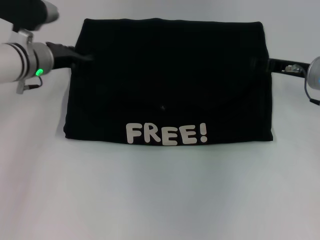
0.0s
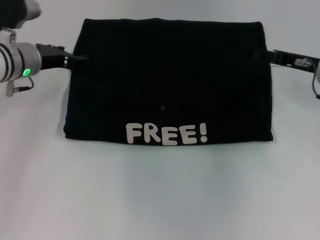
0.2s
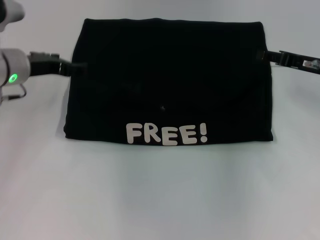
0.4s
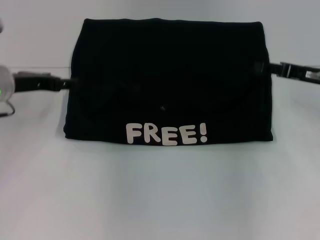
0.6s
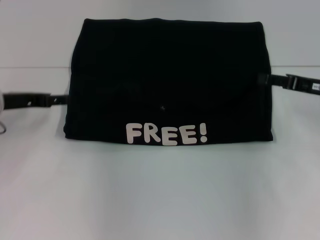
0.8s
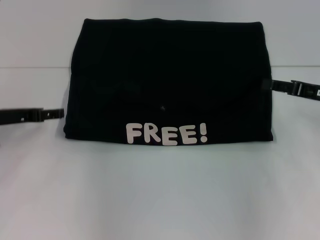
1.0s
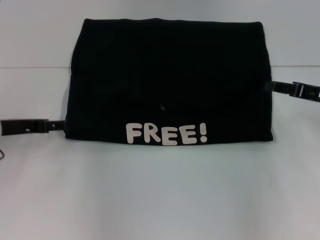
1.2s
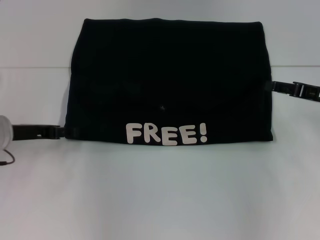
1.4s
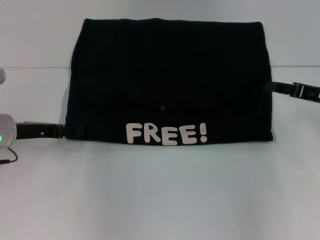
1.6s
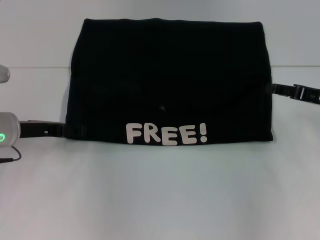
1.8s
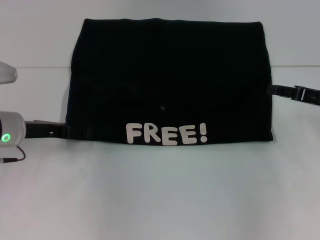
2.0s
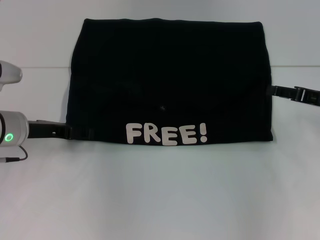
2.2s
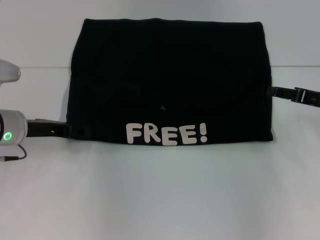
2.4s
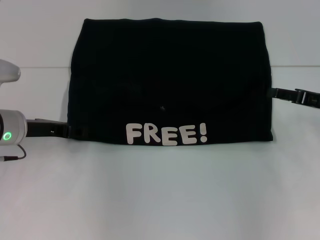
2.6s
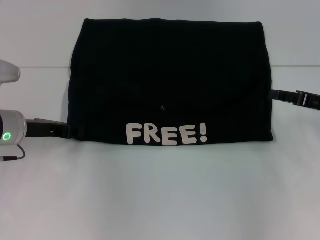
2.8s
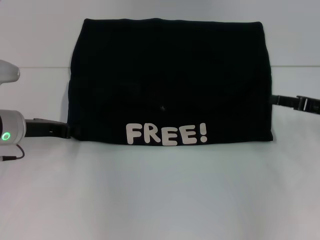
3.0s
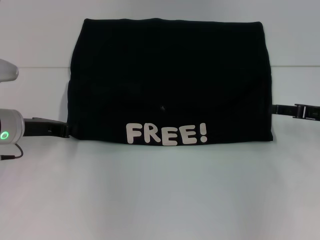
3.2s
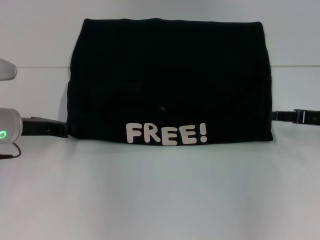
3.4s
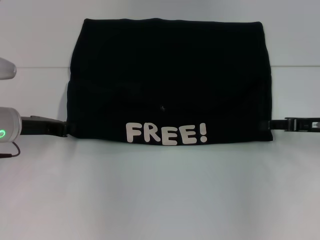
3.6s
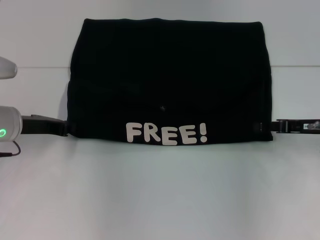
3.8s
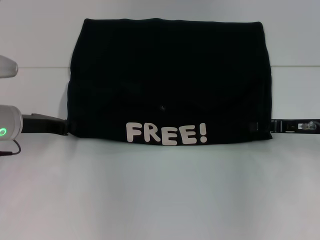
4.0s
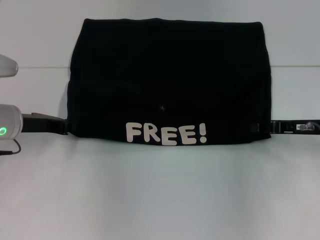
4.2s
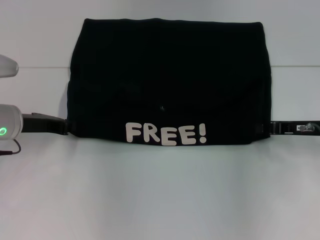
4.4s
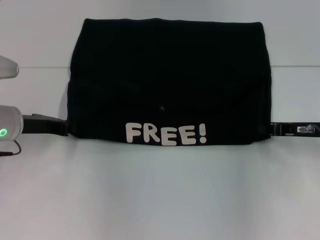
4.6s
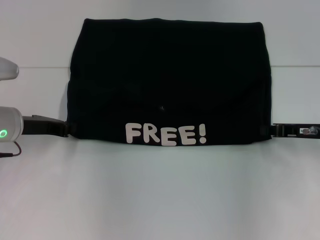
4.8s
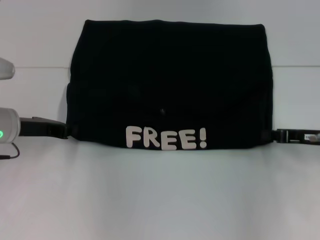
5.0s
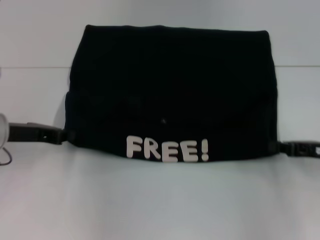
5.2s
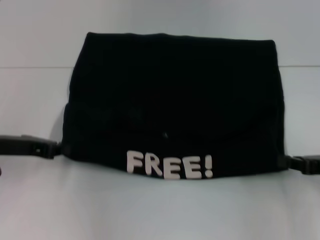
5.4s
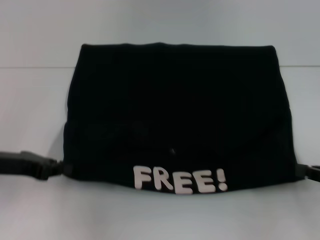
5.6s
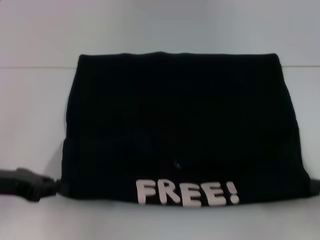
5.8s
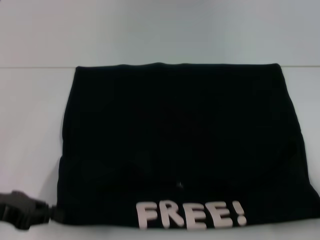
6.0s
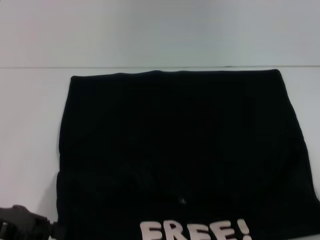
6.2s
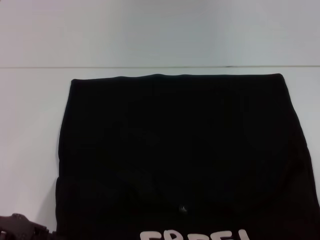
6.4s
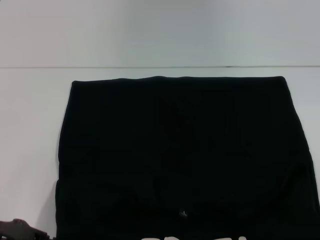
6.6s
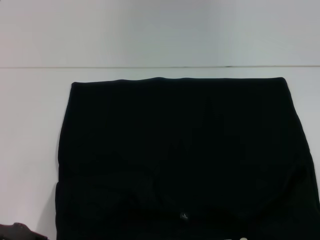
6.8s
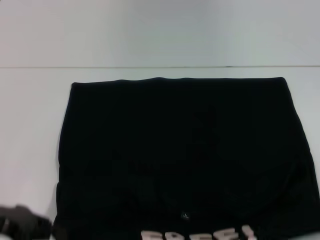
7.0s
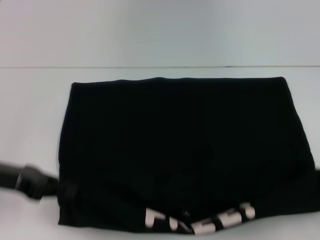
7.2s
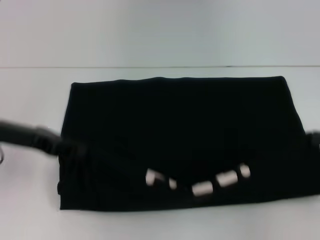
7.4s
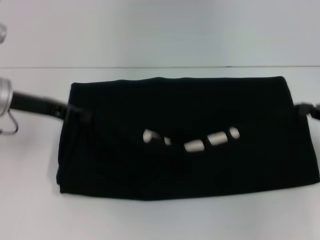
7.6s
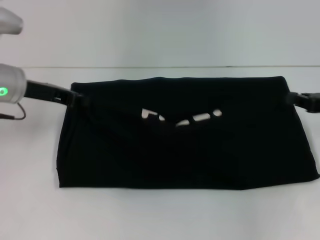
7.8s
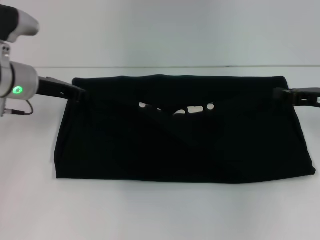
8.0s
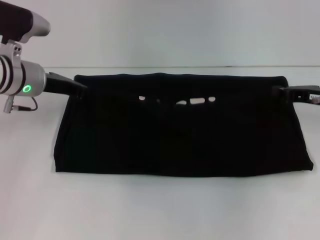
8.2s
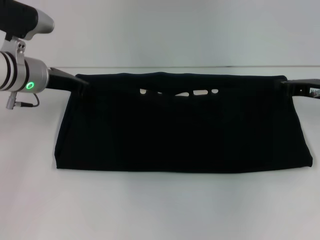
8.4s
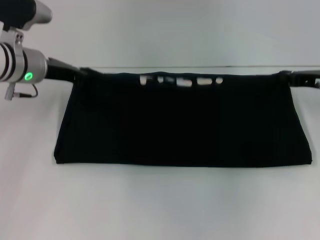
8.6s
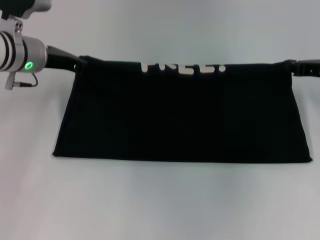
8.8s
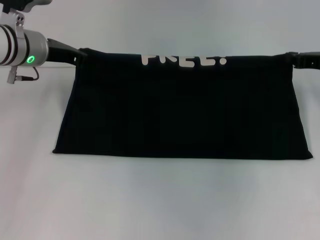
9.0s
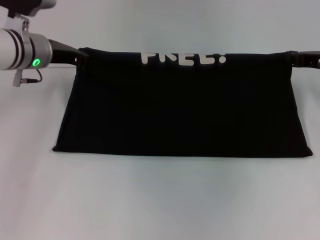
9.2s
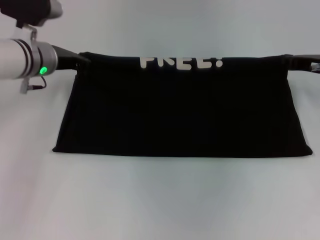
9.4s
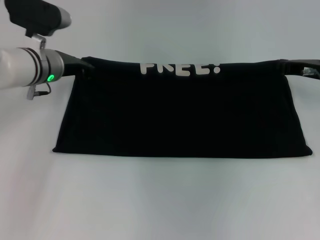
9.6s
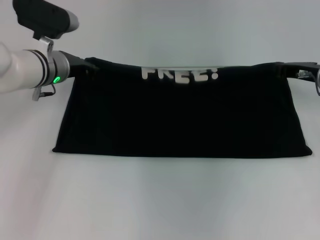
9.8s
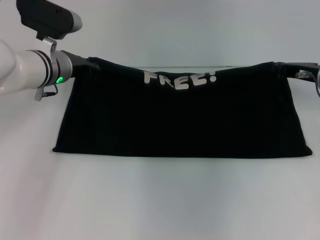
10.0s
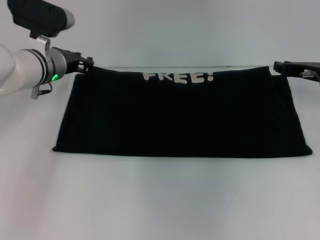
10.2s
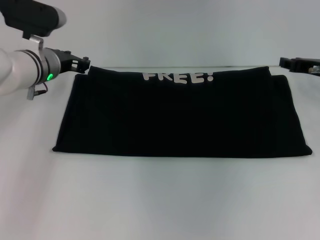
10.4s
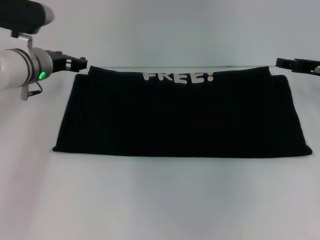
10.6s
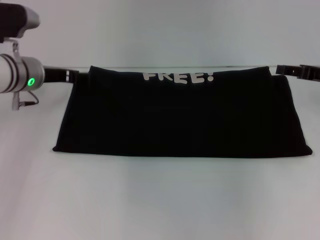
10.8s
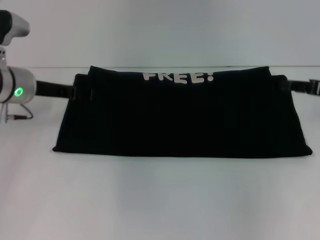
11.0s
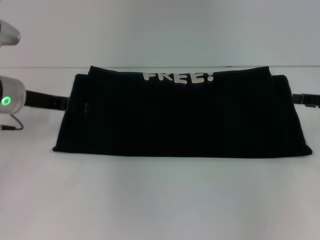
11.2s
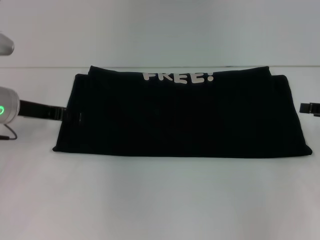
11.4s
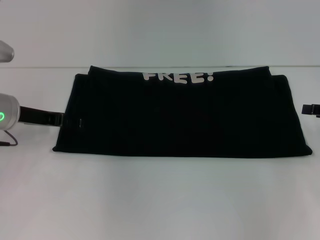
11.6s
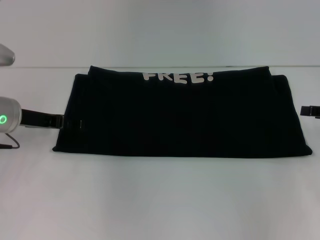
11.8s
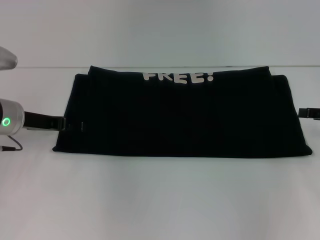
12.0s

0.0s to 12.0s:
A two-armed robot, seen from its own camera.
Step, 0.6s to 6.4s: Pull the clothes with your left hand.
Step, 0.6s to 6.4s: Pull the clothes with your right hand.
Step, 6.6s to 10.6s: Fold the clothes with your right hand.
0.0s to 1.6s: The right gripper moves backward and to the right, about 10 cm; the left gripper shifts some 10 cm backward and to the left, and opens.
1.6s to 3.0s: The left gripper closes its fingers.
3.0s to 4.4s: The grippers make only small movements.
4.4s to 6.0s: The left gripper goes approximately 10 cm backward, while the right gripper travels backward and to the right by roughly 20 cm.
6.0s to 7.6s: Both grippers travel together forward, some 10 cm.
7.6s to 9.0s: Both grippers travel together forward, roughly 10 cm.
9.0s to 10.4s: The left gripper moves approximately 5 cm.
10.4s to 12.0s: The left gripper is displaced backward and to the left by approximately 10 cm, and opens its fingers. The right gripper goes approximately 10 cm backward and to the right, and opens its fingers.

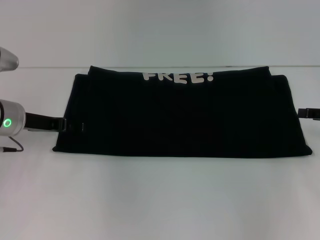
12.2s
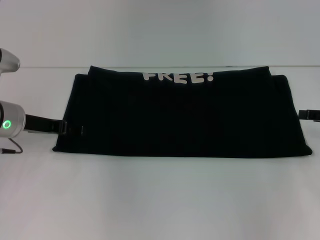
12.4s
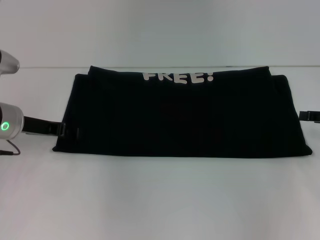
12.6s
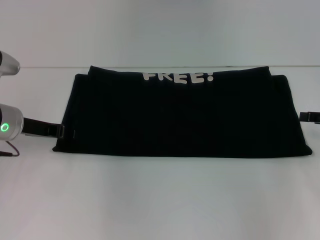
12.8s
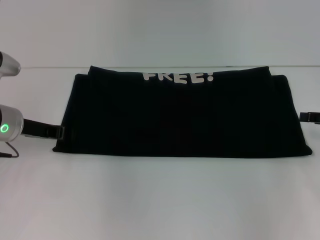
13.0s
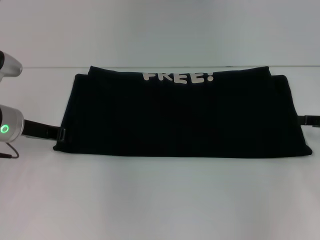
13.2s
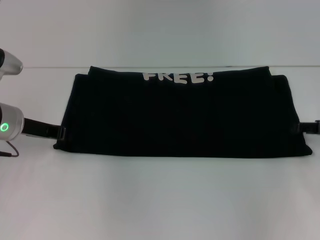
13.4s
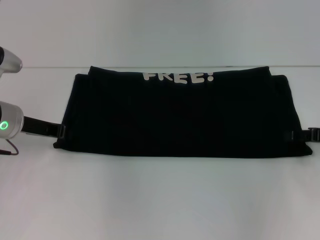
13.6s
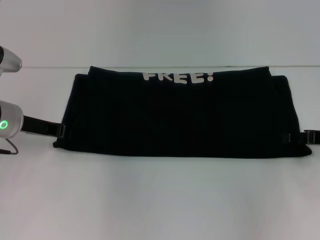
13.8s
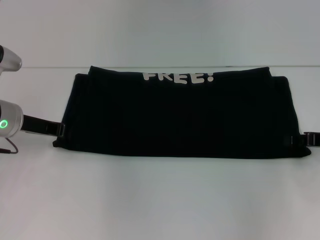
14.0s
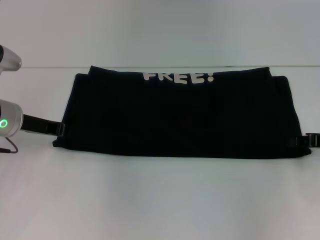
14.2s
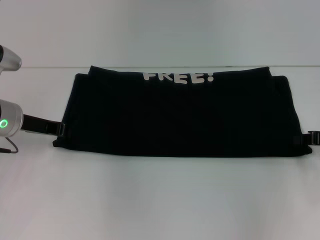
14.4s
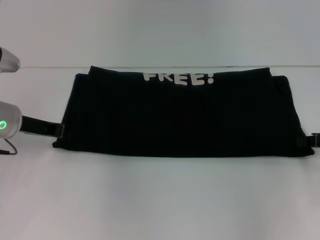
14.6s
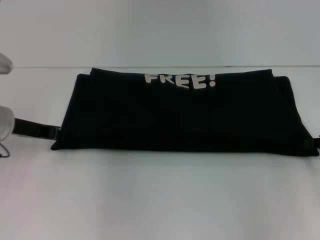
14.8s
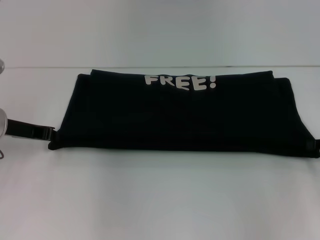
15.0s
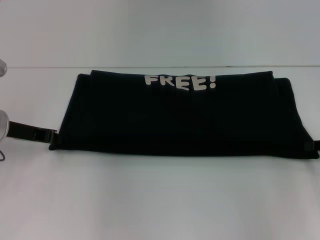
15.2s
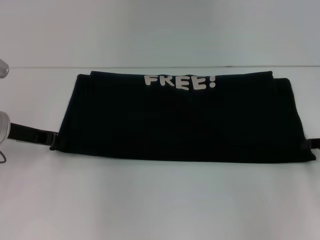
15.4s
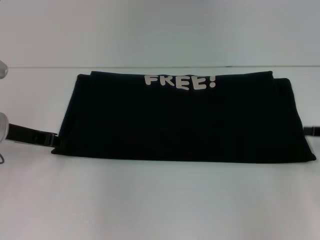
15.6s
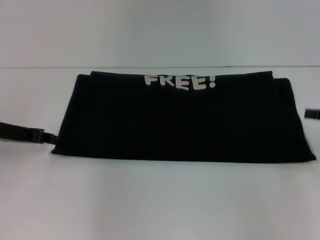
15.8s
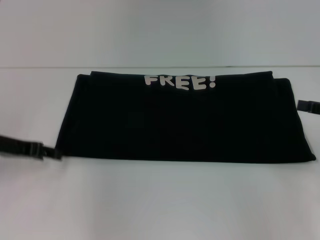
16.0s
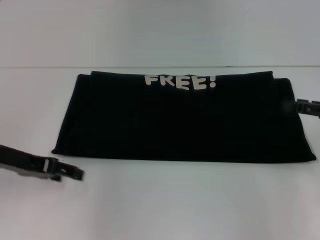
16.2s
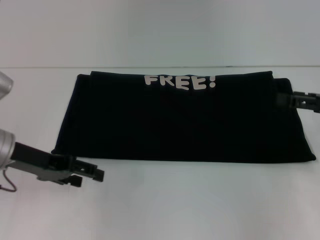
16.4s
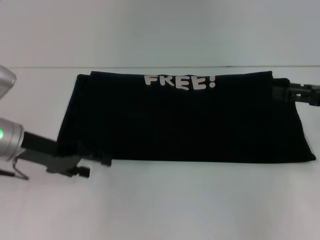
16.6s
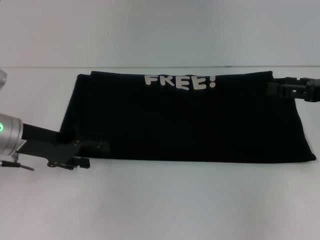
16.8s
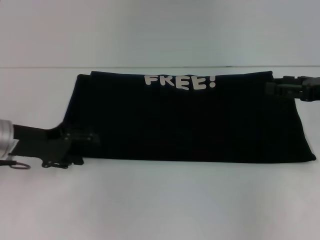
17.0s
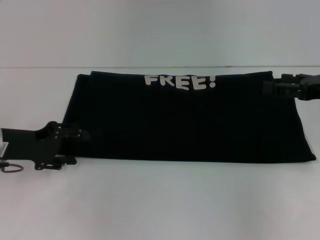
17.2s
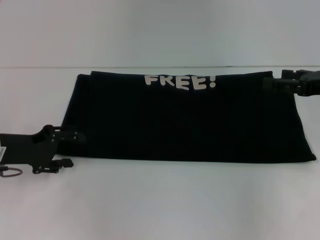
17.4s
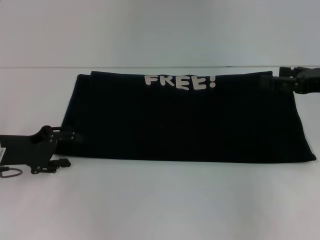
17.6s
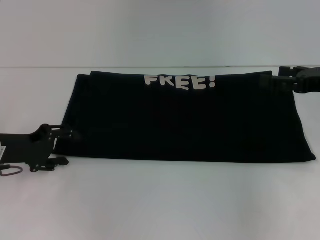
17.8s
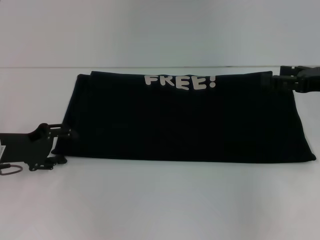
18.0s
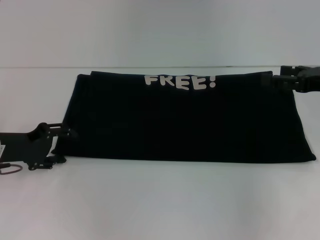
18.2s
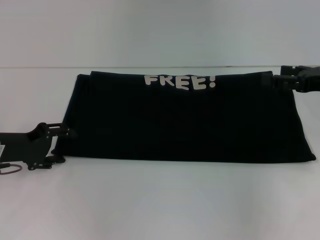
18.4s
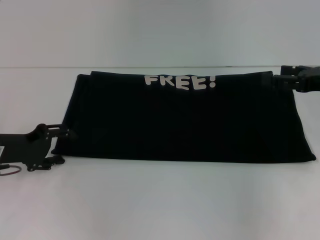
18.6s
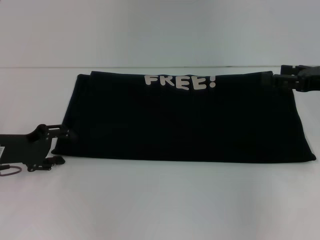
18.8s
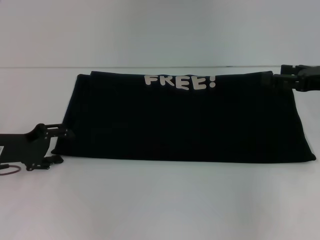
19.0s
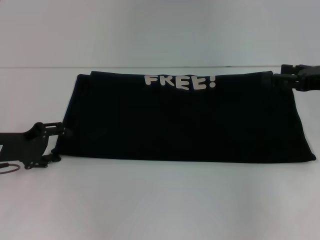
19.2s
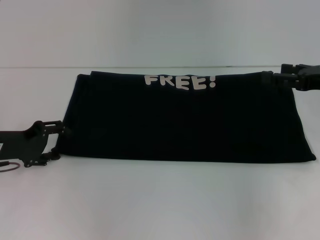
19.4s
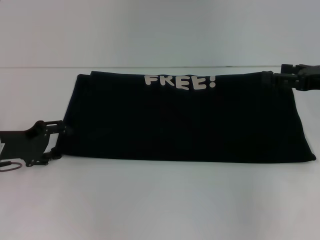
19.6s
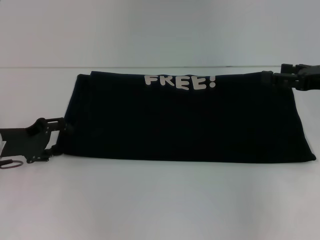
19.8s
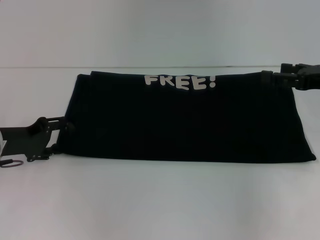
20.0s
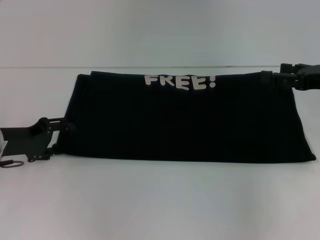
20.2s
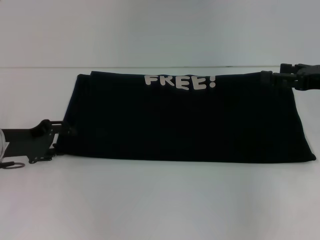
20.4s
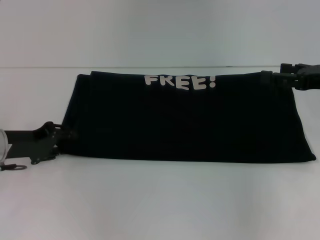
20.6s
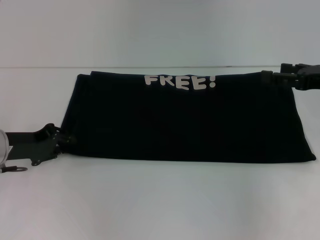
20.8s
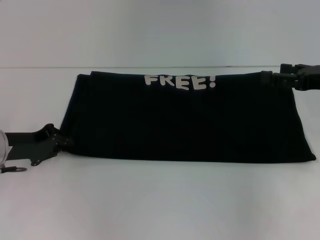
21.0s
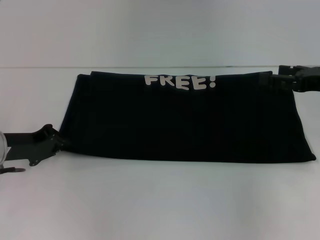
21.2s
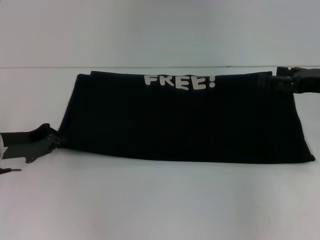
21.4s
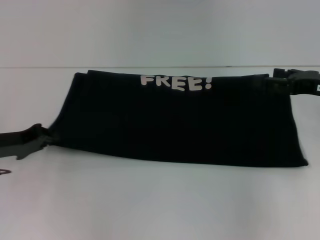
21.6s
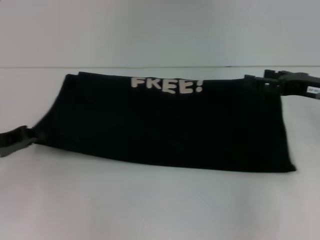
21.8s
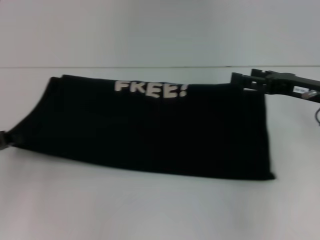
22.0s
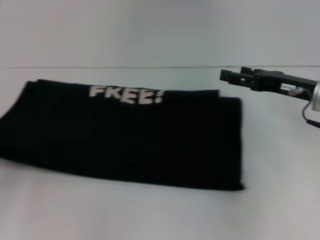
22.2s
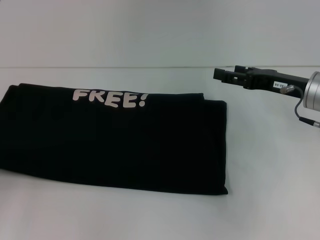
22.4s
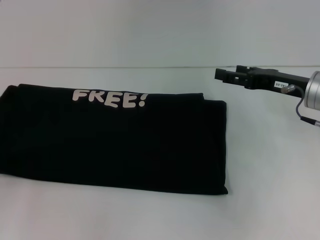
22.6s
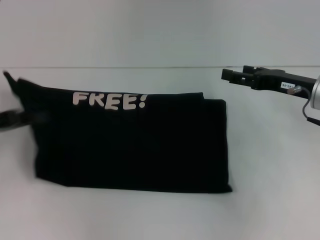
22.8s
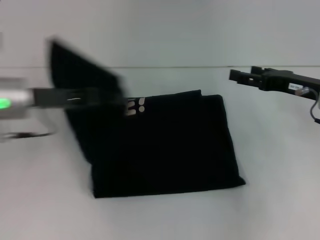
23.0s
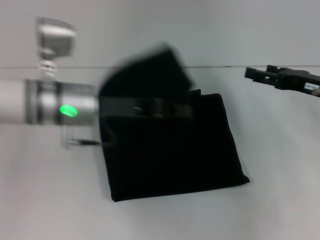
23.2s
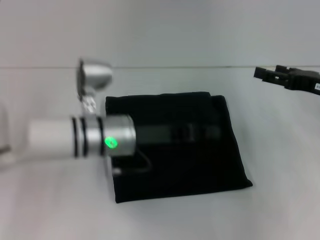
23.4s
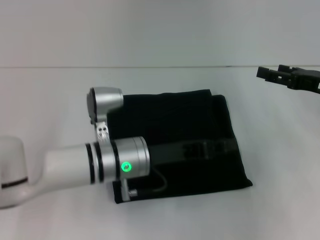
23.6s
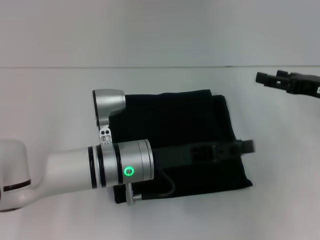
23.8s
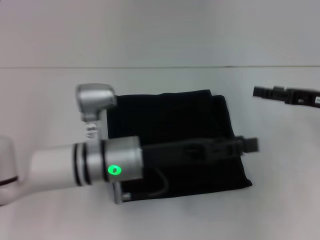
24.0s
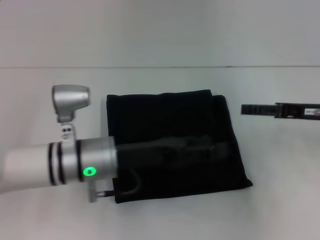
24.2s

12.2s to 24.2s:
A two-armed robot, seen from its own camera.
Step, 12.2s to 23.8s: Fold the clothes with your left hand.
12.2s to 13.8s: The left gripper closes up.
13.8s to 15.2s: The right gripper closes up.
15.2s to 16.6s: The right gripper travels upward by some 5 cm, and opens up, while the left gripper opens.
16.6s to 18.2s: The left gripper moves approximately 5 cm.
18.2s to 19.8s: The grippers make only small movements.
19.8s to 21.2s: The left gripper closes its fingers.
21.2s to 22.6s: The right gripper is displaced to the left by about 5 cm; the left gripper heads to the left and backward, covering about 10 cm.
22.6s to 24.2s: The left gripper is displaced to the right by some 25 cm, and opens up.
